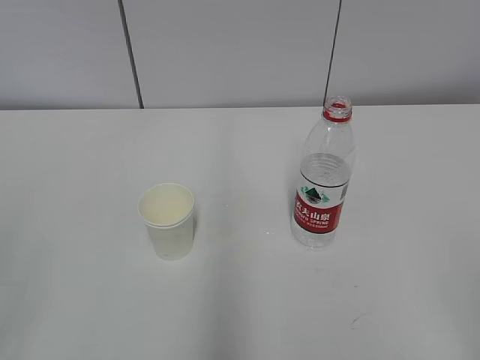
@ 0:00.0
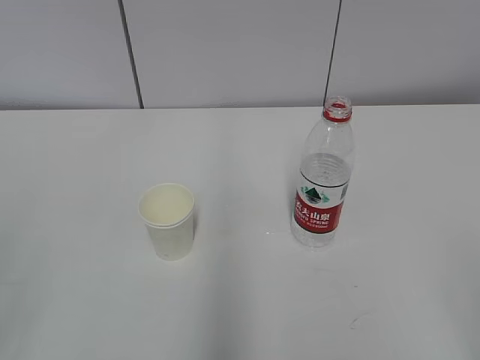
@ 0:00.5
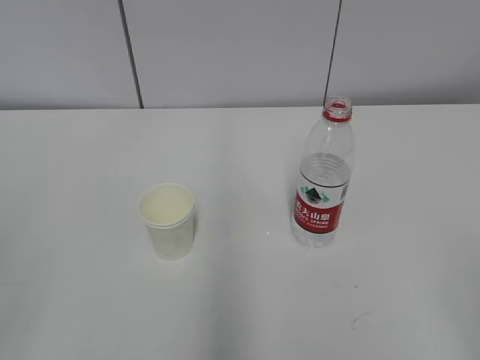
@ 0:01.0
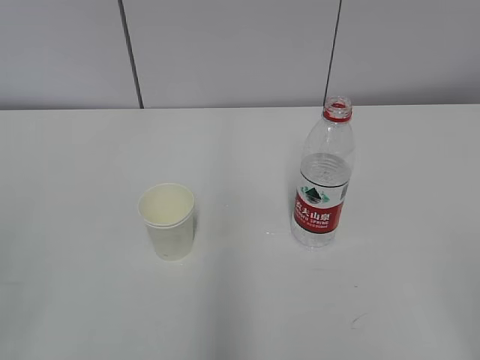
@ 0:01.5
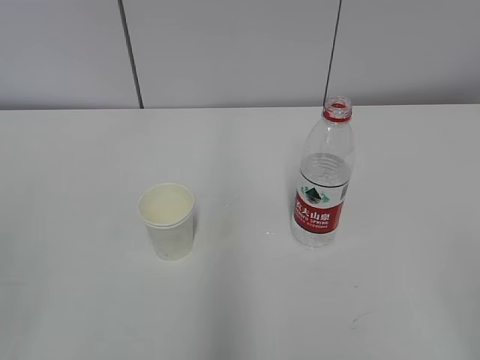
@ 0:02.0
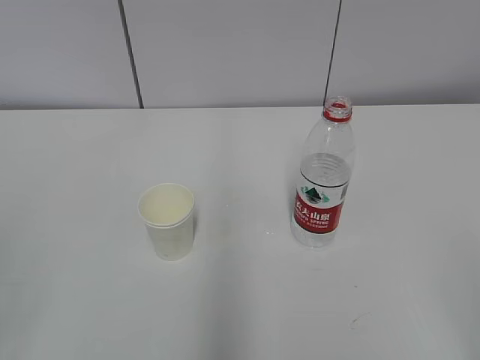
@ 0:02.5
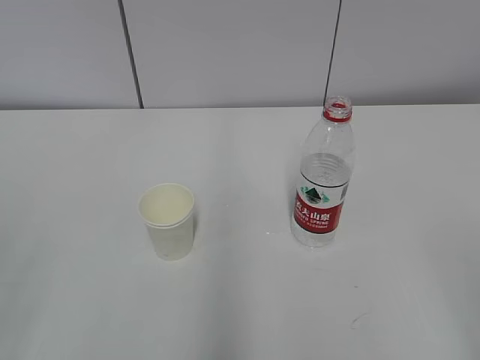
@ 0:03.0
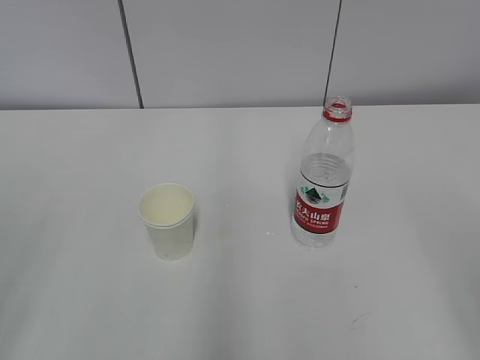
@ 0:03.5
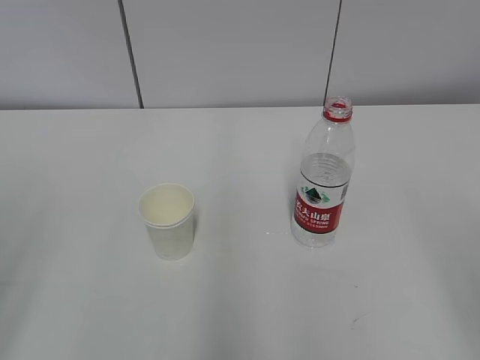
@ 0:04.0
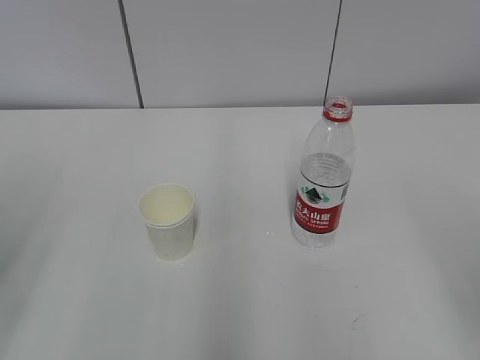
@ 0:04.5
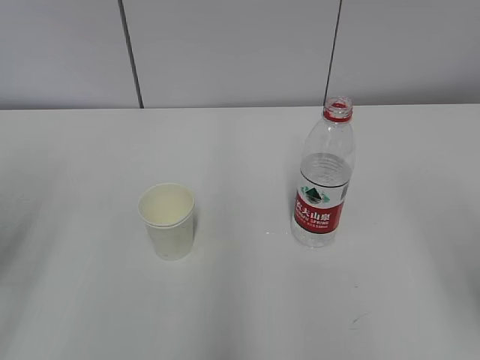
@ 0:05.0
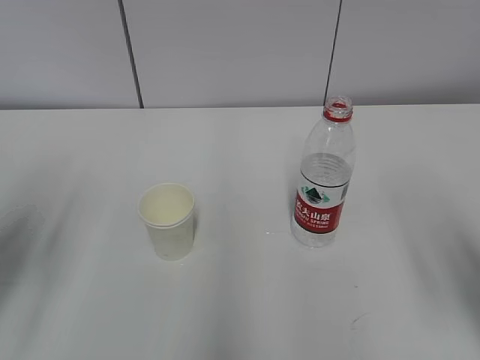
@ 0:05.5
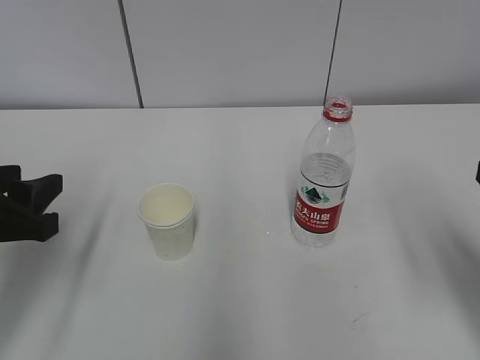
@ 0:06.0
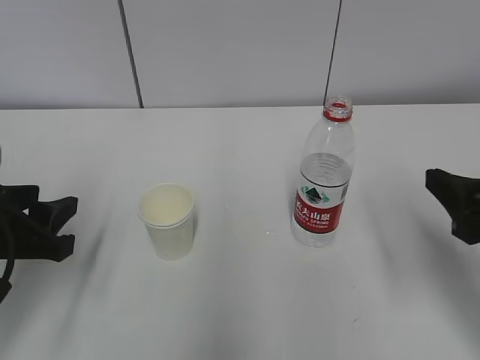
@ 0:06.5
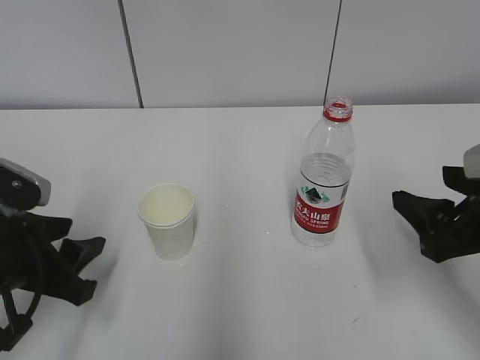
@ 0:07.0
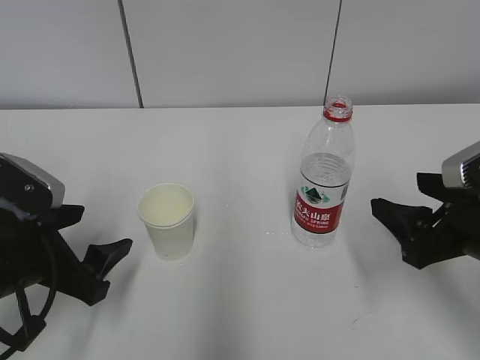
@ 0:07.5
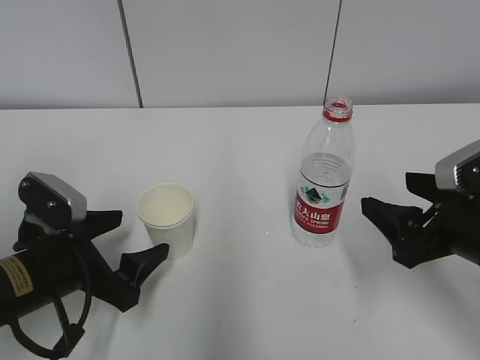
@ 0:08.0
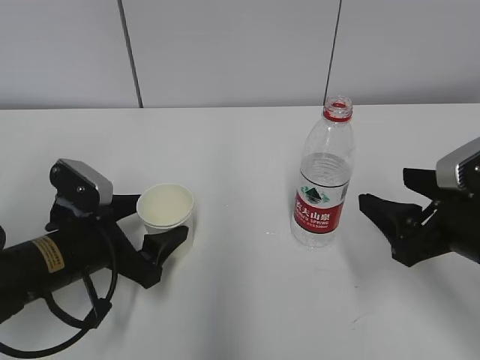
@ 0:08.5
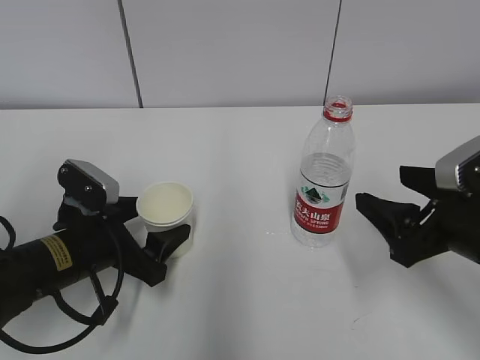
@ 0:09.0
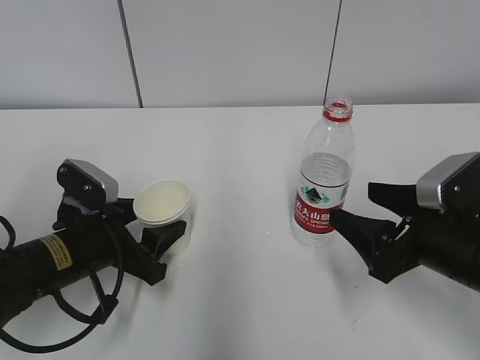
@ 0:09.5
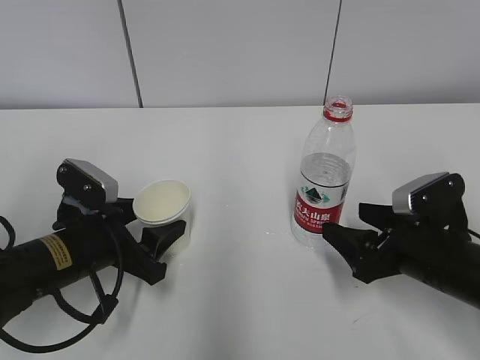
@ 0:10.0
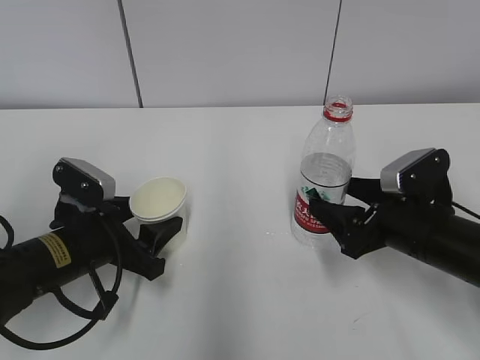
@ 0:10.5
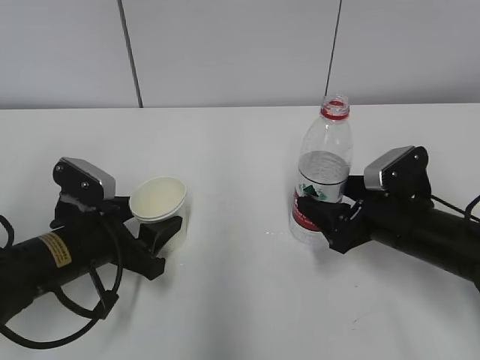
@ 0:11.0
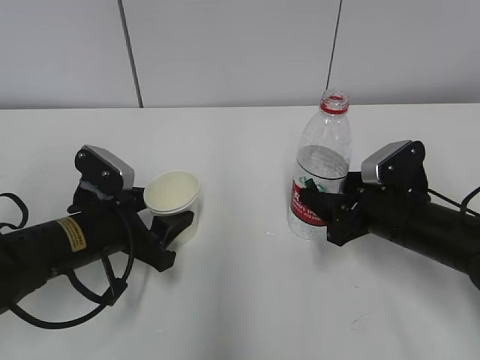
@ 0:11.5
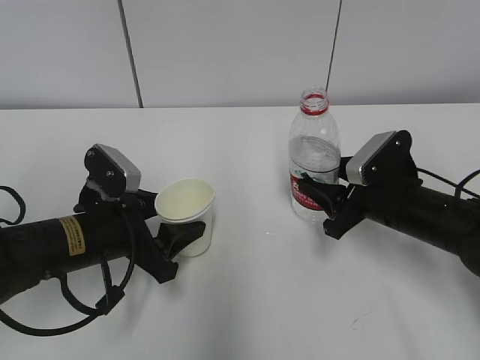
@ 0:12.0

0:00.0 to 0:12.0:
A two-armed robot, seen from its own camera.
Step, 0:00.0 to 0:07.5: Grab the paper cup with the left hand.
Step, 0:08.0 to 0:09.5: Grab the water bottle with the right hand.
0:04.0 to 0:06.0: The left gripper heads forward, downward and to the right, covering about 15 cm. The right gripper travels forward by about 10 cm.
0:06.0 to 0:08.0: The right gripper goes approximately 10 cm downward and forward. Meanwhile the left gripper travels downward and to the right by about 10 cm, and opens its fingers.
0:08.0 to 0:10.0: The left gripper closes up, while the right gripper shifts roughly 5 cm downward.
0:10.0 to 0:12.0: The right gripper moves forward, some 5 cm, and closes its fingers.

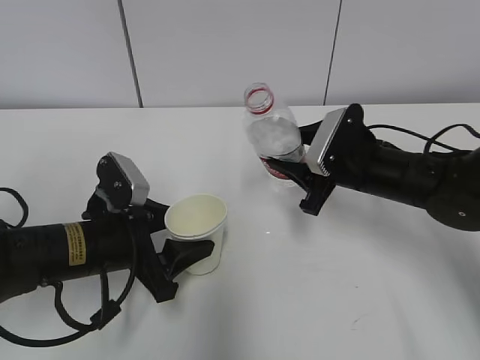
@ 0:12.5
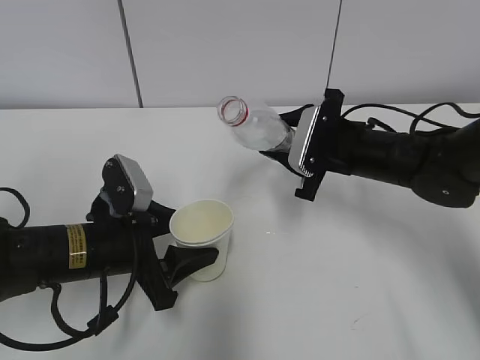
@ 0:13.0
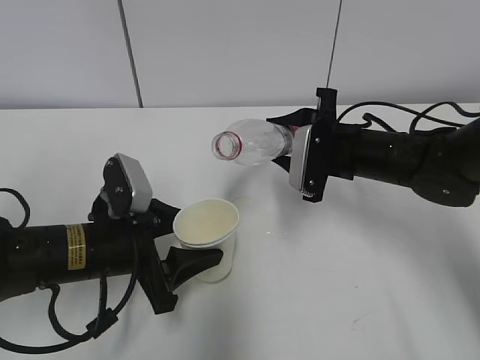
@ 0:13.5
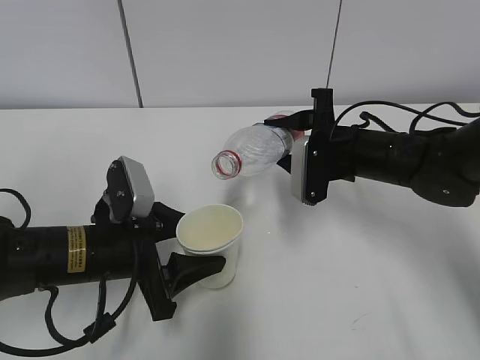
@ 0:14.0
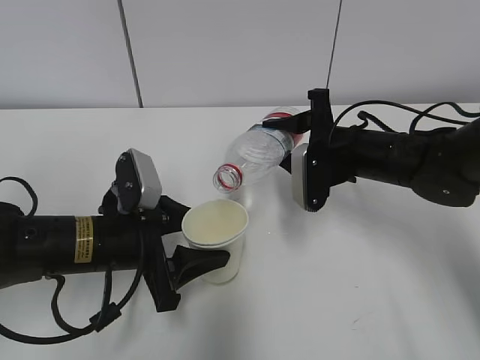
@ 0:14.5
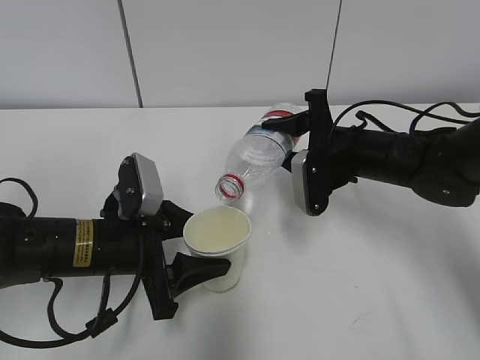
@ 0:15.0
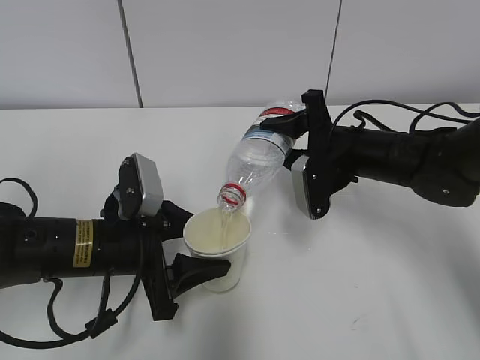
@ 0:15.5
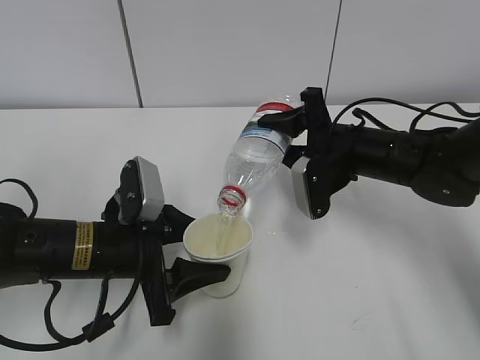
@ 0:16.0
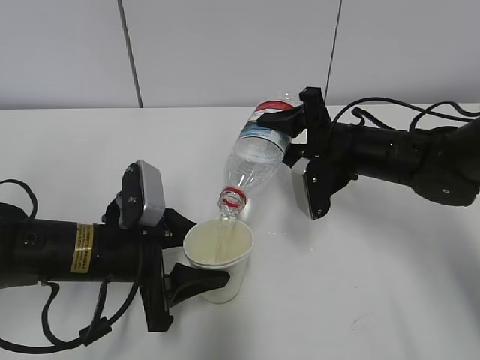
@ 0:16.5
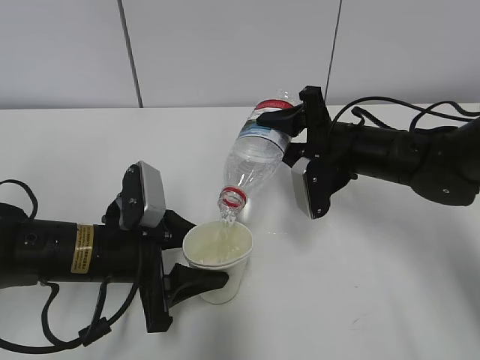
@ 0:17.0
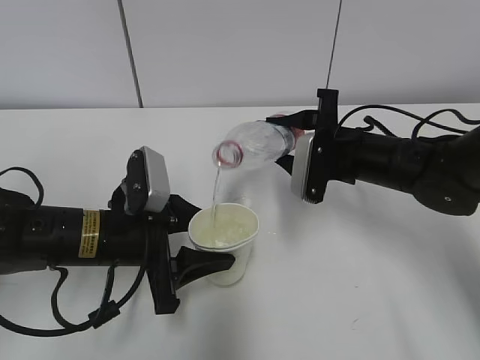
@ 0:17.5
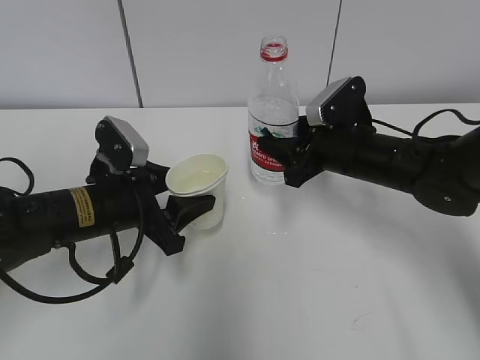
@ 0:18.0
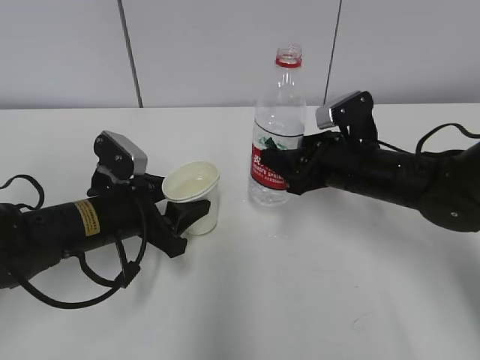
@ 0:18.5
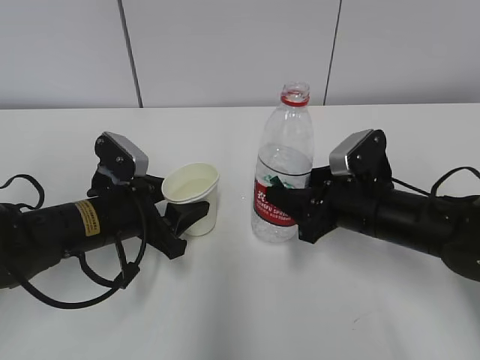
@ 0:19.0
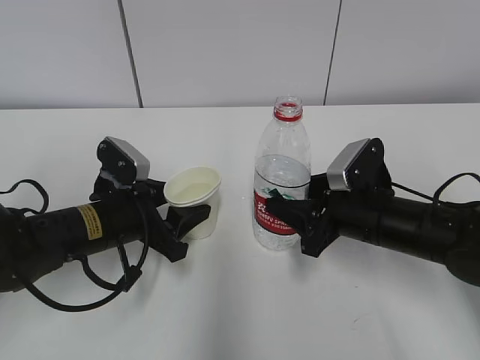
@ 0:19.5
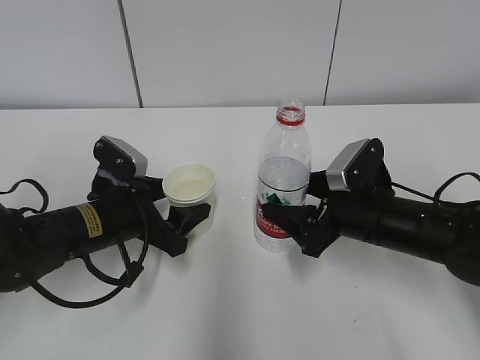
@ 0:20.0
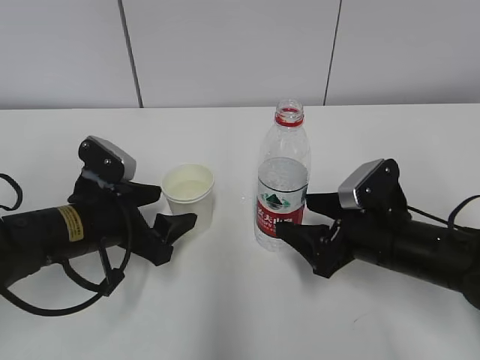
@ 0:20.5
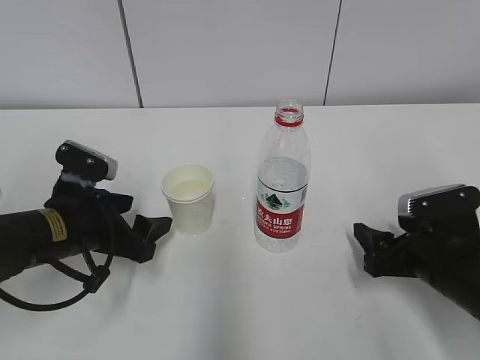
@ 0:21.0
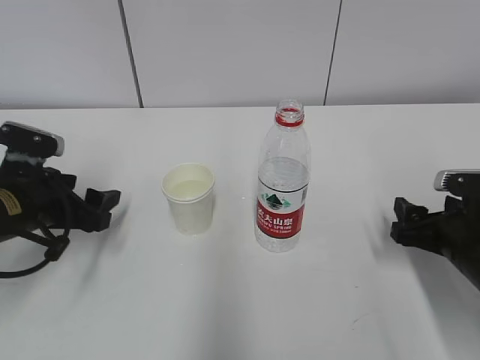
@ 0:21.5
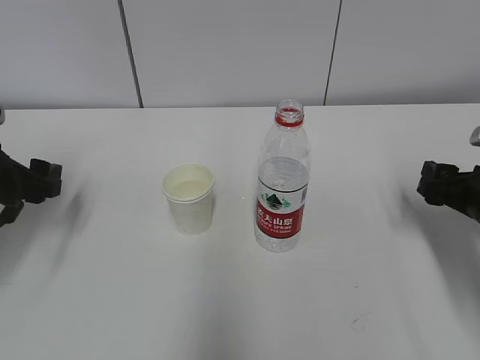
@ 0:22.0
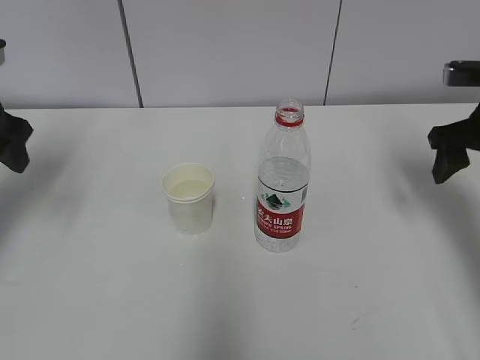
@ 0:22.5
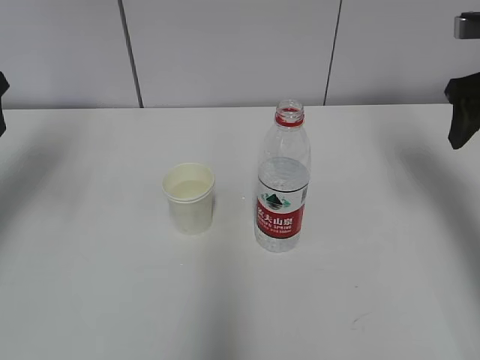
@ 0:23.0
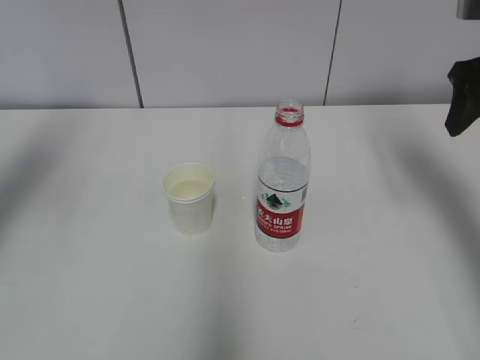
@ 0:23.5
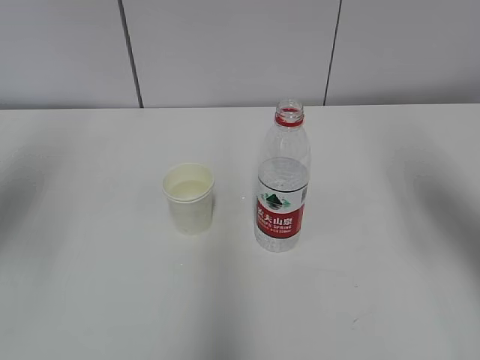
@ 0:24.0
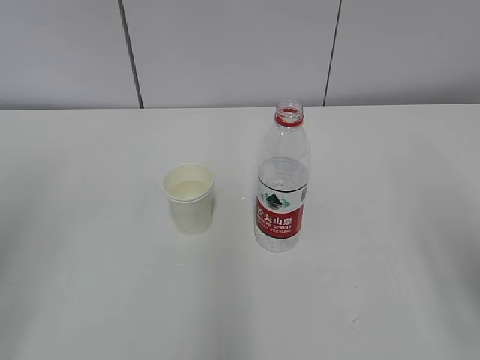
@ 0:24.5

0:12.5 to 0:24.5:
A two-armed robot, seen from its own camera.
Step, 0:13.0 to 0:14.5: Fill water with the left hand.
Step, 0:15.5 to 0:16.5: Place the paper cup with the left hand.
Step, 0:15.5 to 0:16.5: Place the water bottle with the right hand.
0:14.5 to 0:16.5: The grippers move only a little.
0:16.5 to 0:18.5: The left gripper changes place by approximately 5 cm.
0:18.5 to 0:20.5: The right gripper heads backward, covering approximately 10 cm, and opens its fingers. The left gripper opens.
0:20.5 to 0:22.5: The right gripper moves upward, to the right and forward, about 20 cm. Meanwhile the left gripper goes approximately 20 cm upward and to the left.
0:22.5 to 0:24.5: Both grippers move backward, about 25 cm.

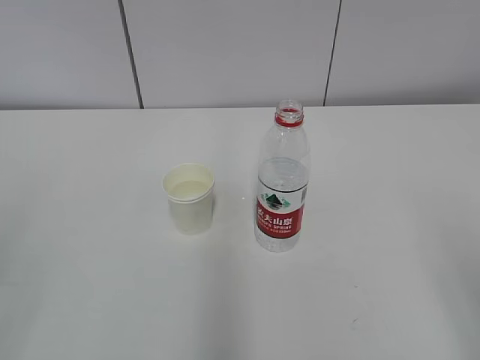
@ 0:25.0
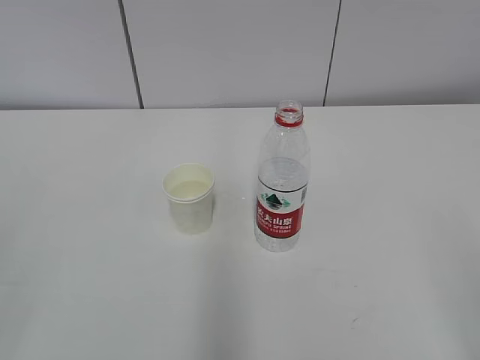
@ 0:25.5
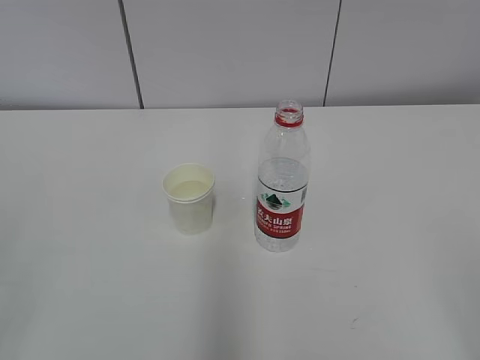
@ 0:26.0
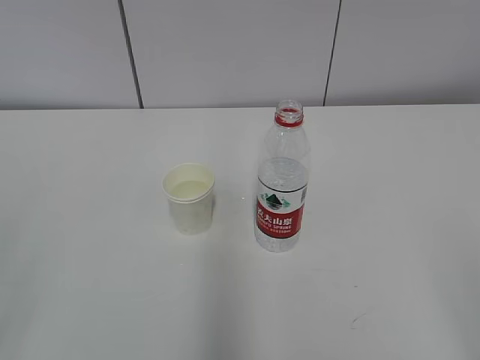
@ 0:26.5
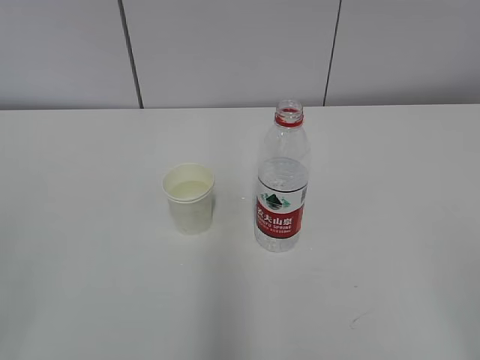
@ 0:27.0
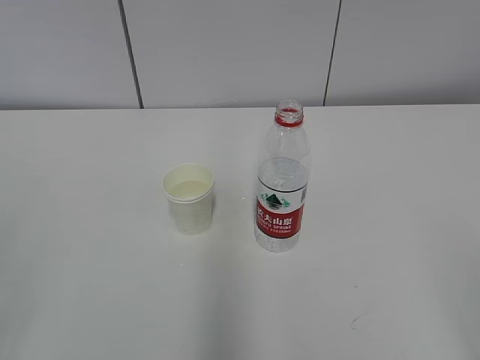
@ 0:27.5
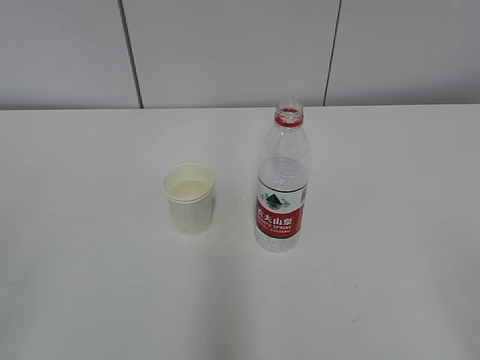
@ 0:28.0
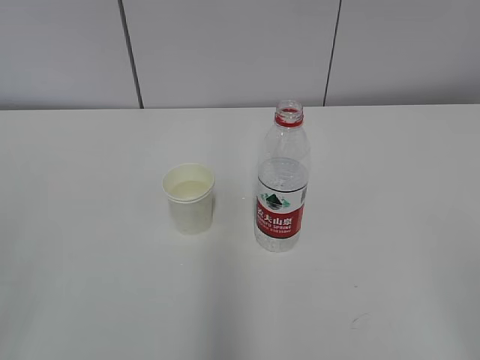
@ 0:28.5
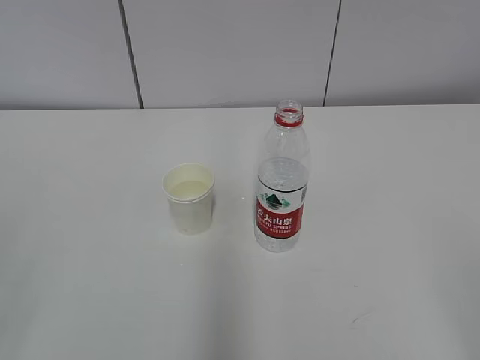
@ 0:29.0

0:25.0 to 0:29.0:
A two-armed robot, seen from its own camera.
0:27.0 to 0:29.0: Both grippers stay put.
